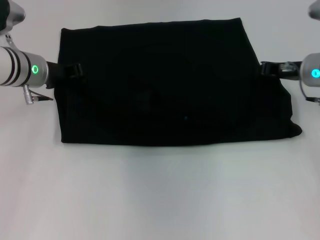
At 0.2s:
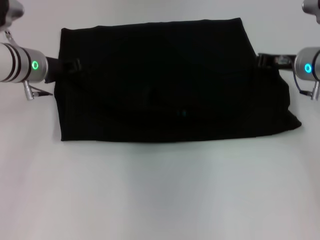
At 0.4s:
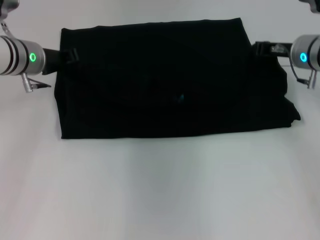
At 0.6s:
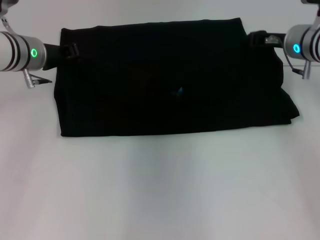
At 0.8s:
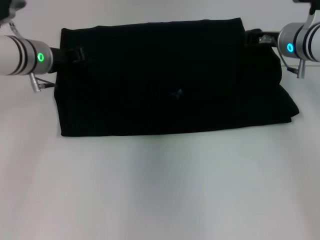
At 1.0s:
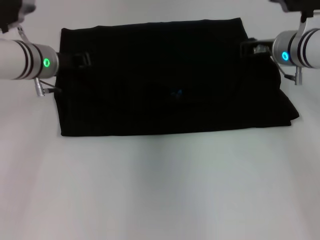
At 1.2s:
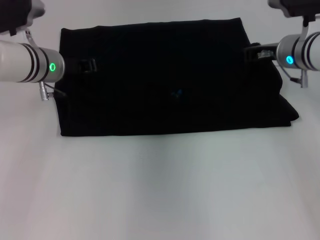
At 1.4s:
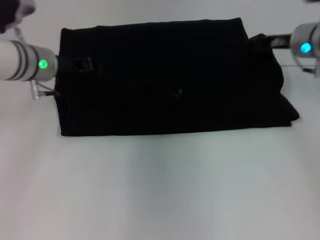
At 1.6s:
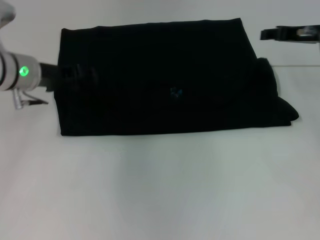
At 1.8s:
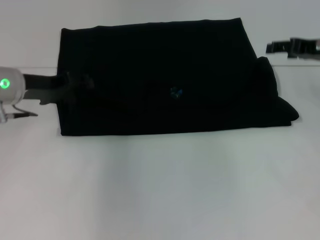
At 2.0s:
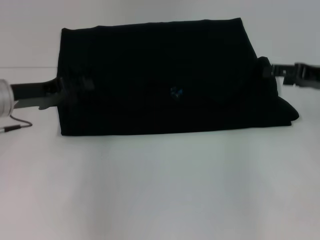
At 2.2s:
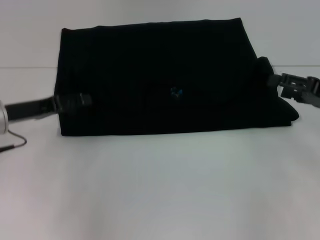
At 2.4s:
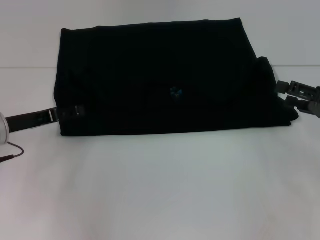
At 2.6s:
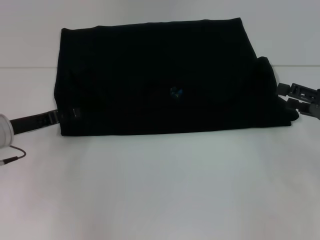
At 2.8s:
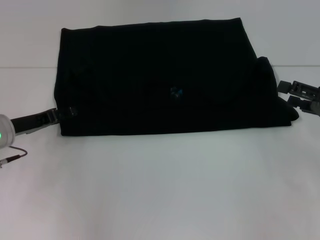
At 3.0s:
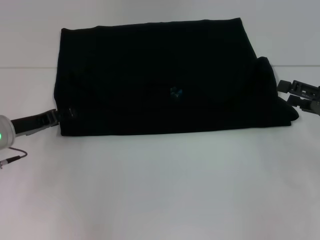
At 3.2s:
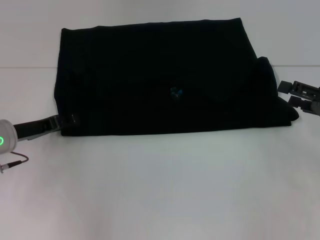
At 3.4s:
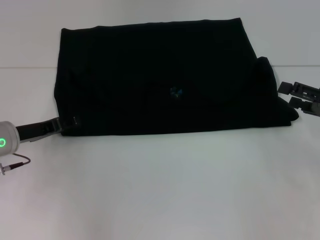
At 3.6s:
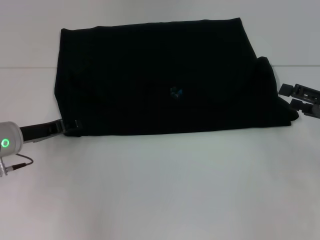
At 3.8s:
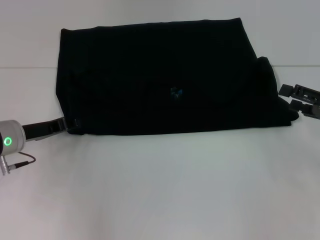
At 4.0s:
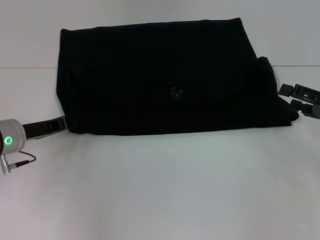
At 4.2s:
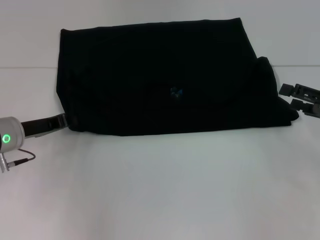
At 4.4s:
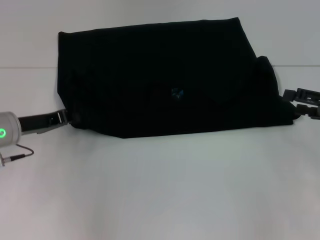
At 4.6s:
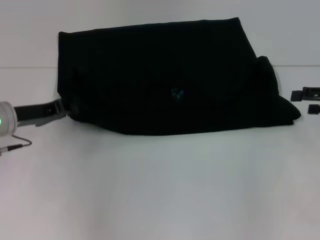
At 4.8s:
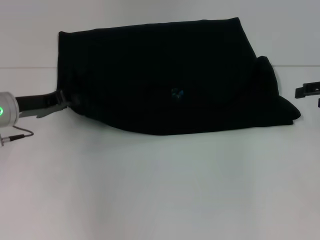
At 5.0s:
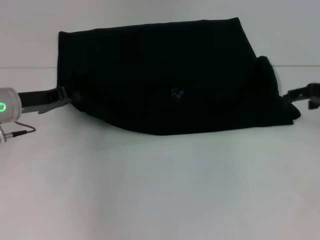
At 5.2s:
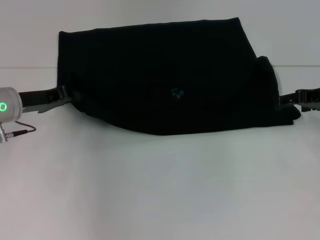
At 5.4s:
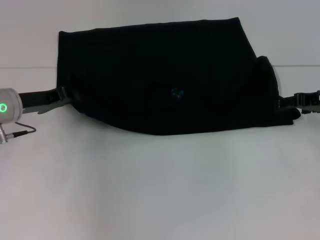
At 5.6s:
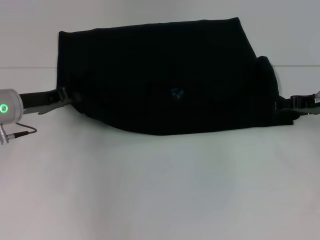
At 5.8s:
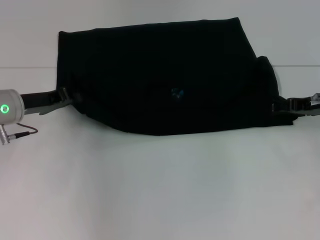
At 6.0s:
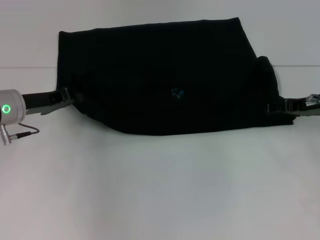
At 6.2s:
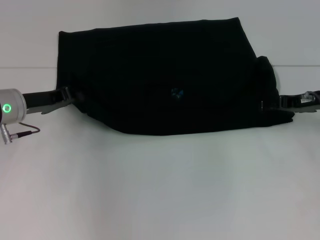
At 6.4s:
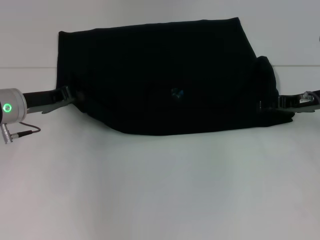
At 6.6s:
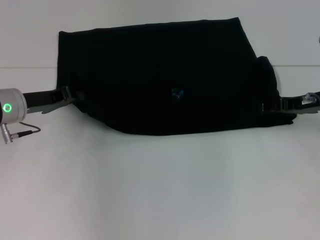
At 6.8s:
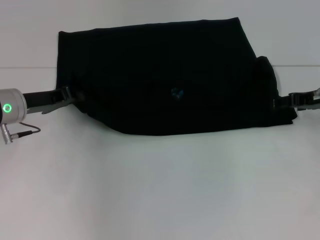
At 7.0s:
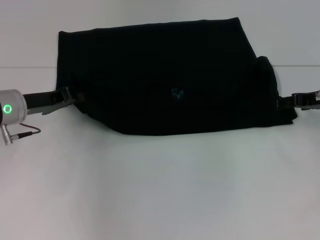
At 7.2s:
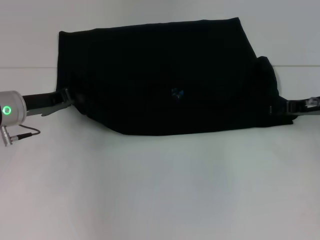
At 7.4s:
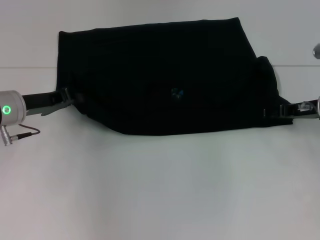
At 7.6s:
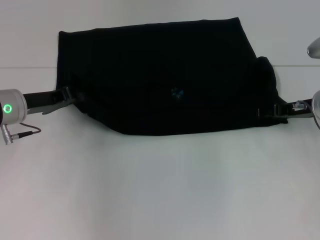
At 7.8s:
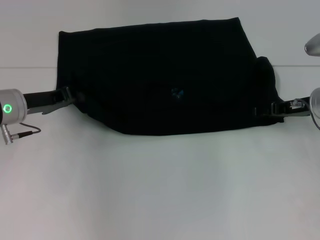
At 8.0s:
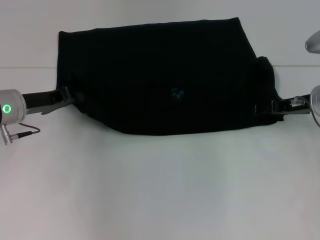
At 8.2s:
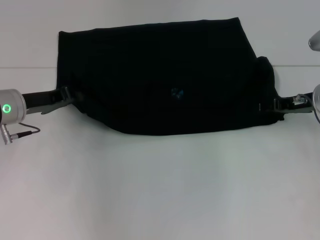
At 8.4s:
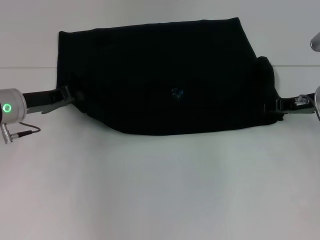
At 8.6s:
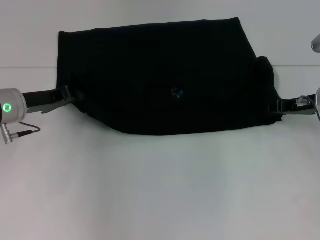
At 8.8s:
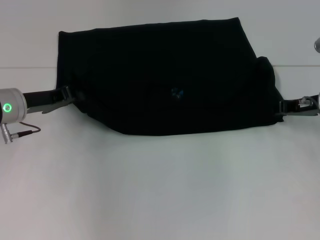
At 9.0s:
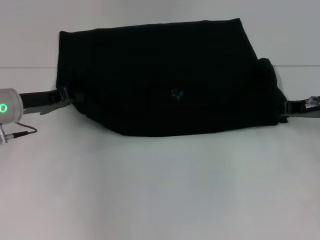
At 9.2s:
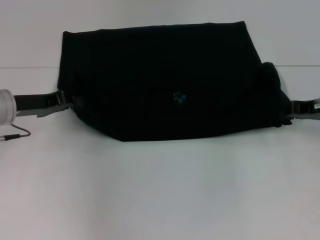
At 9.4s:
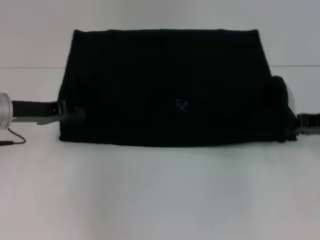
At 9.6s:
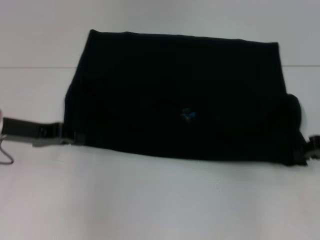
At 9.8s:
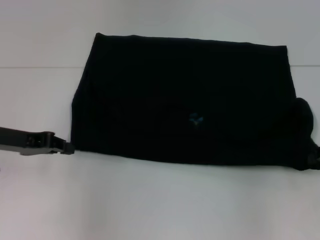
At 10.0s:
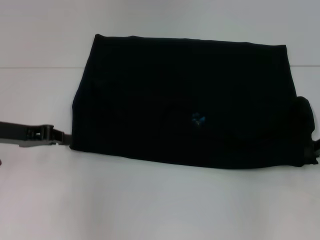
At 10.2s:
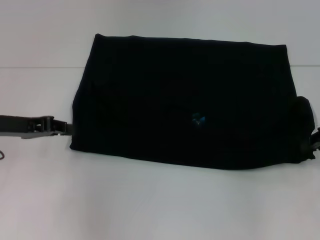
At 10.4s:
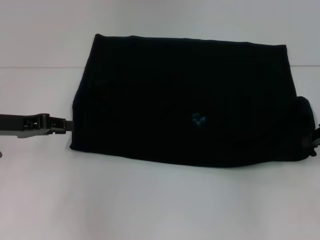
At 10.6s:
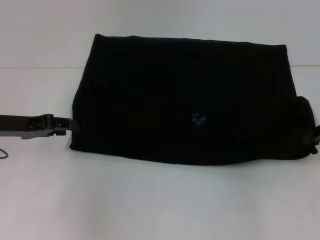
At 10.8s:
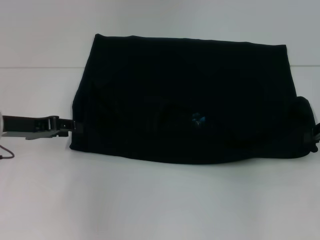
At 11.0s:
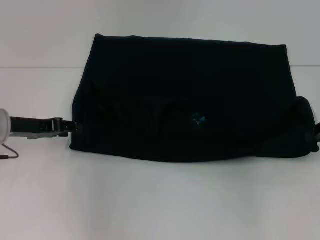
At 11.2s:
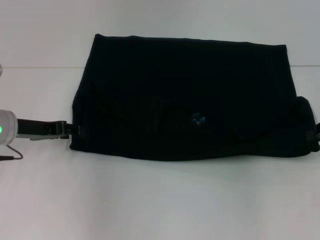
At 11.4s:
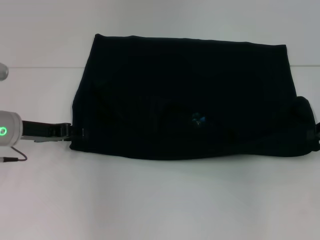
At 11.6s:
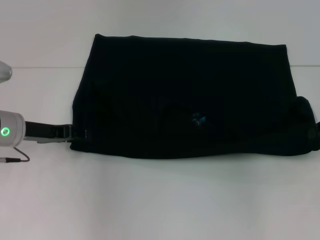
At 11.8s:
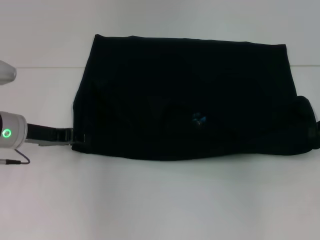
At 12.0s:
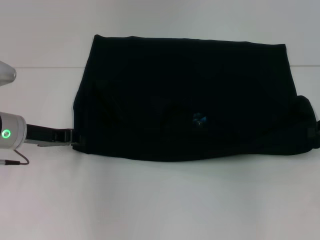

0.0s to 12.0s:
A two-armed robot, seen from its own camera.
Step, 0.0s to 1.6s: Fold the clothes with your left hand.
Step, 0.0s to 1.6s: Fold the clothes with your right hand.
0.0s to 1.6s: The right gripper moves upward, about 5 cm; the left gripper opens.
1.6s to 3.0s: The left gripper shifts roughly 10 cm downward, backward and to the left, while the right gripper travels backward, to the right and downward by about 15 cm, and opens its fingers.
3.0s to 4.4s: The left gripper closes.
4.4s to 6.0s: The right gripper shifts some 10 cm forward and to the left.
6.0s to 7.6s: The grippers stay close to where they were, moving slightly.
7.6s to 9.0s: The right gripper closes up.
9.0s to 10.4s: The right gripper goes some 10 cm backward and to the right; the left gripper ends up roughly 5 cm from where it was.
10.4s to 12.0s: The left gripper changes place by some 5 cm.

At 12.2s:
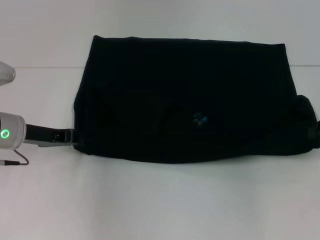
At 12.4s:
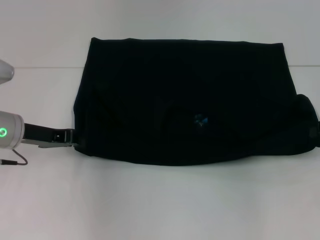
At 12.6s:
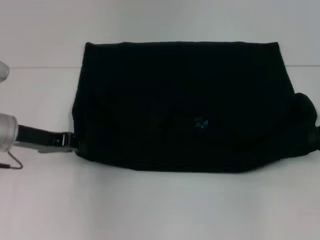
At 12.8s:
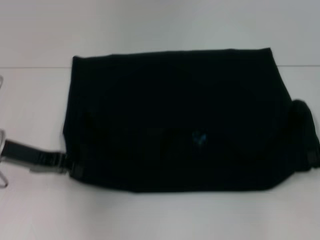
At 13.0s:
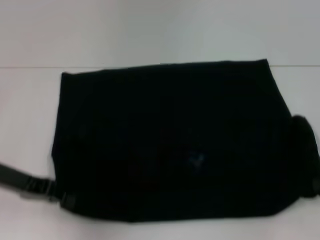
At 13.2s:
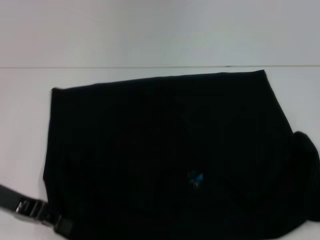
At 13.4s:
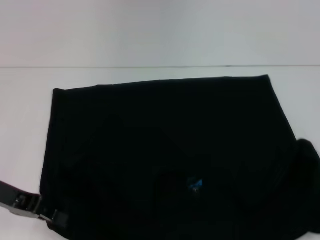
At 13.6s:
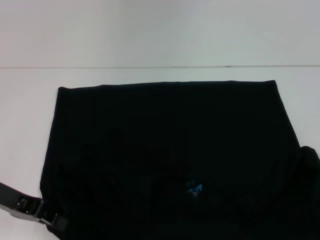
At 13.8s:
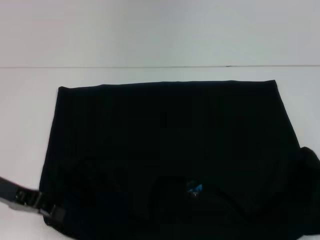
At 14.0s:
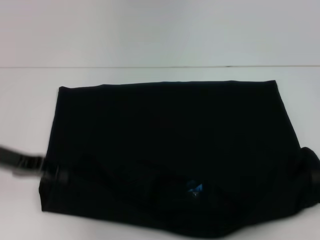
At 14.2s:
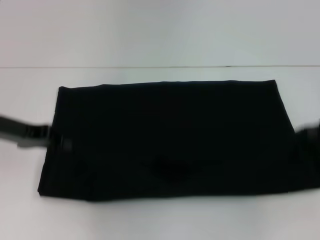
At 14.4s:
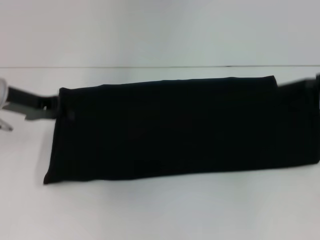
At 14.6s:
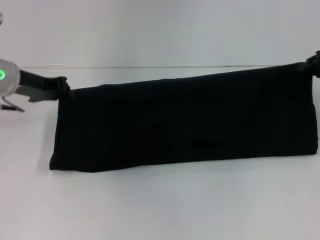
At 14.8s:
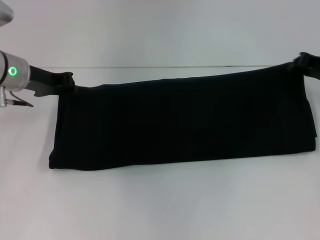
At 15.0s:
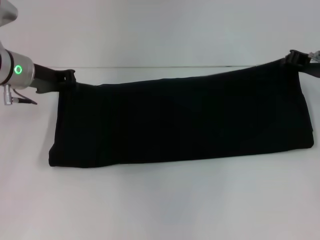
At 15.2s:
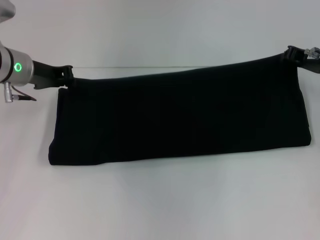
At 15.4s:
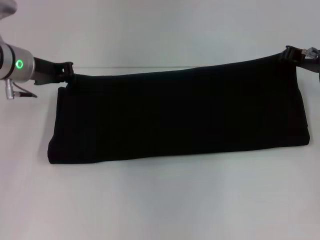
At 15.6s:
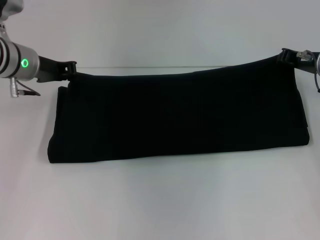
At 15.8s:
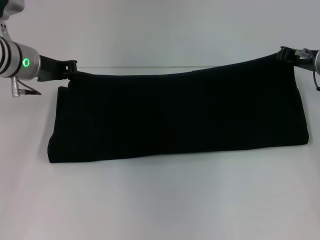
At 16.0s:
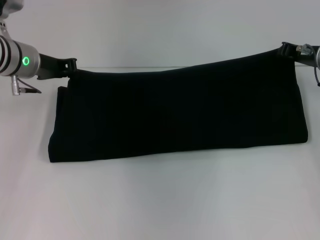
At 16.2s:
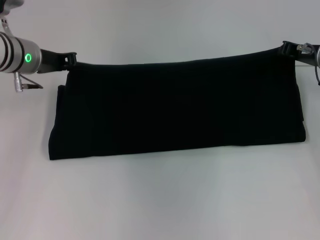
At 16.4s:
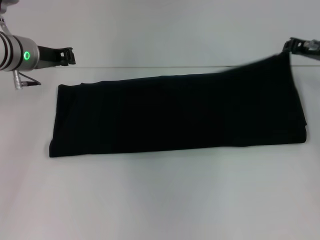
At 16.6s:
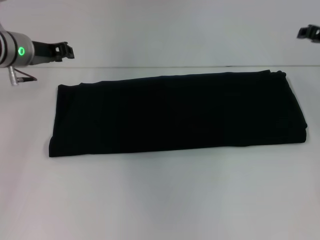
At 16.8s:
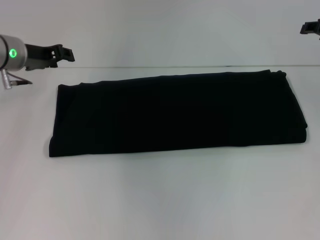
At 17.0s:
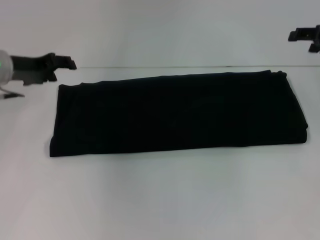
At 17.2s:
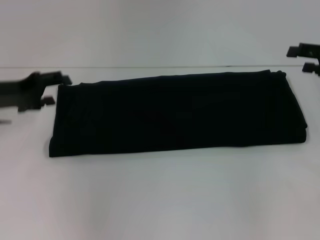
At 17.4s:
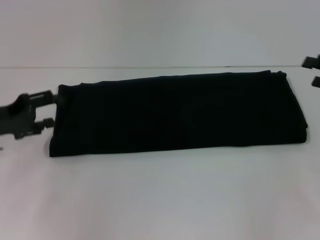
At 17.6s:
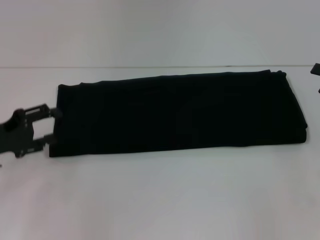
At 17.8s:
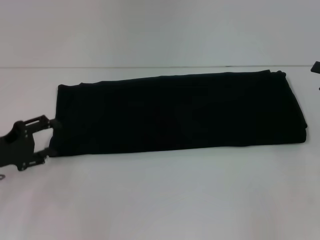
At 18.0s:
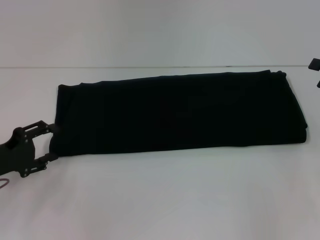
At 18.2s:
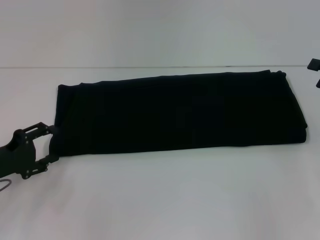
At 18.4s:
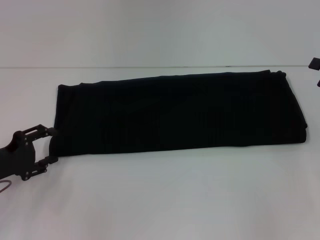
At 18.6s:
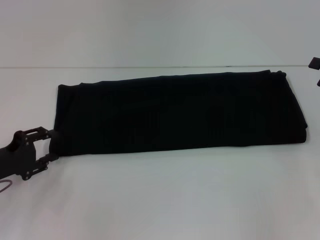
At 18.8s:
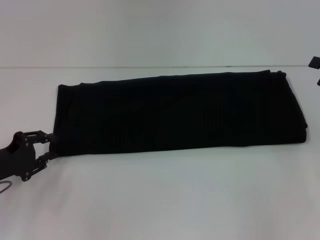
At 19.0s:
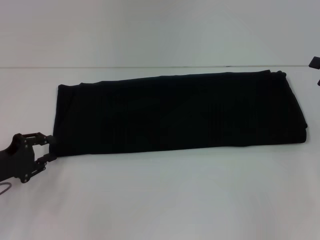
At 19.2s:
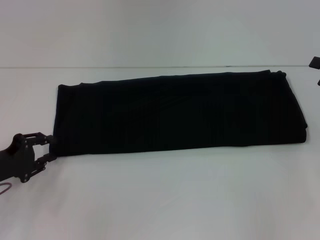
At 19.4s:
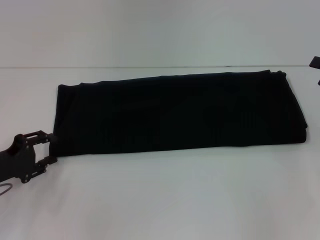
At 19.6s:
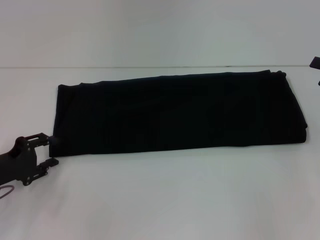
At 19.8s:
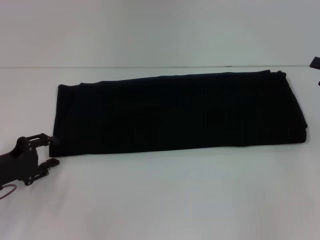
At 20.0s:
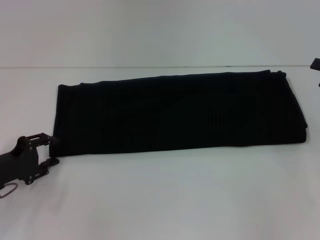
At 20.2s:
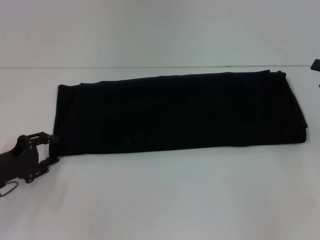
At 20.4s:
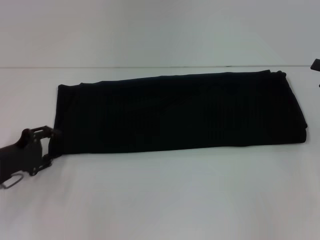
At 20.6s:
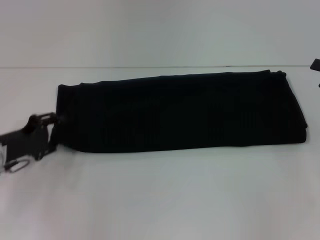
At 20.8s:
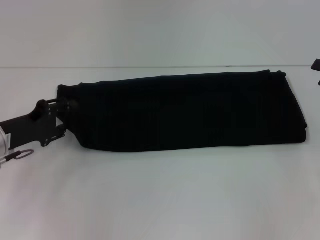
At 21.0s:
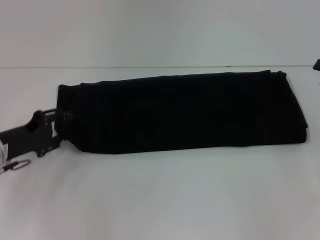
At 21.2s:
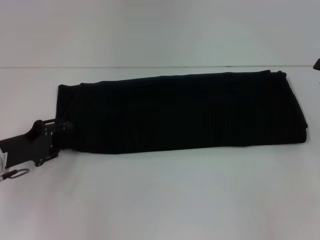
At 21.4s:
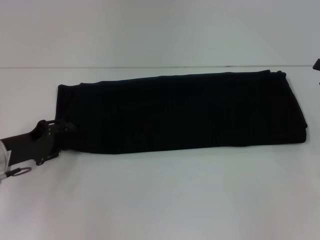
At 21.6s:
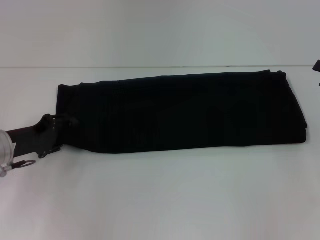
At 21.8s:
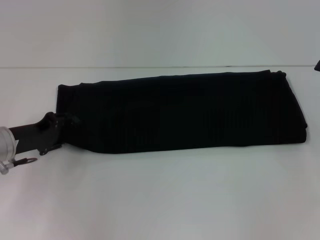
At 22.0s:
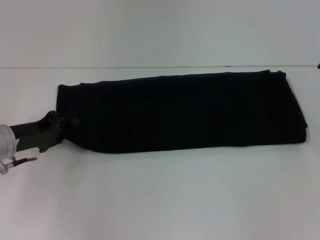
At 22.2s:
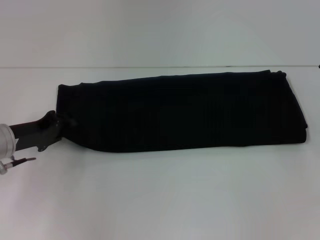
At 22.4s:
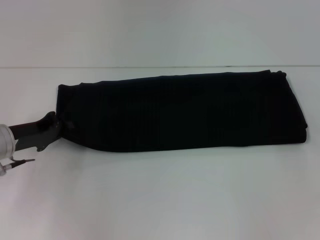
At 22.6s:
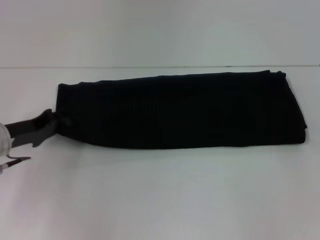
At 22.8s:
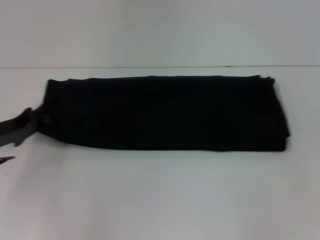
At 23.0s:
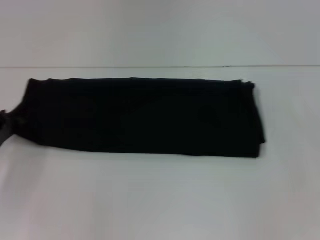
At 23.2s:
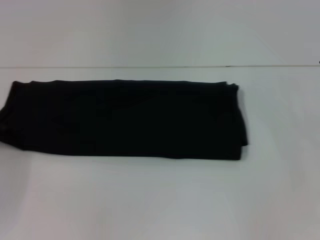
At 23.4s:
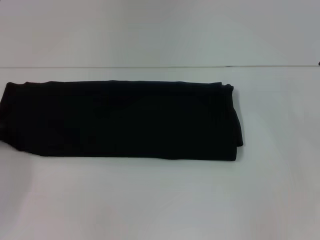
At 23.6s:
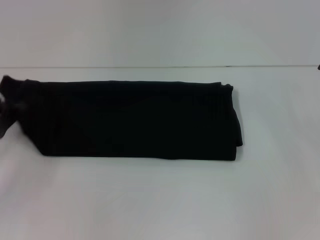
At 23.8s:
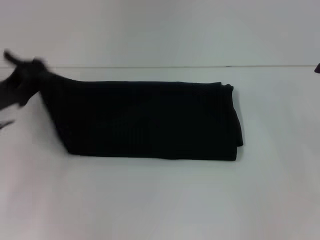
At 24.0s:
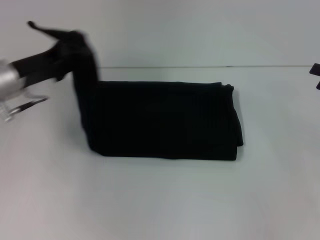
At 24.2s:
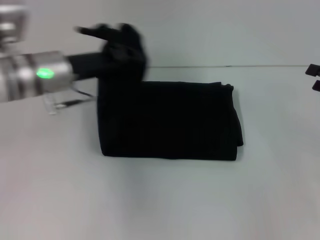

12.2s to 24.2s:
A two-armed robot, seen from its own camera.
Step, 13.8s to 16.4s: Fold the clothes with your right hand.
12.2s to 13.8s: Both grippers travel together backward, some 10 cm.
13.8s to 15.2s: The left gripper travels forward by about 15 cm. Meanwhile the right gripper shifts roughly 20 cm forward and to the left.
15.2s to 16.6s: There are only small adjustments of the grippers.
16.6s to 18.2s: The right gripper moves backward and to the right, roughly 15 cm, and opens its fingers; the left gripper heads backward, downward and to the left, covering some 20 cm, and opens.
18.2s to 19.8s: The grippers move only a little.
21.2s to 22.6s: The left gripper closes up.
22.6s to 24.2s: The left gripper goes about 15 cm to the right and upward.
